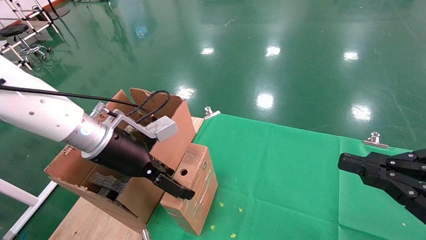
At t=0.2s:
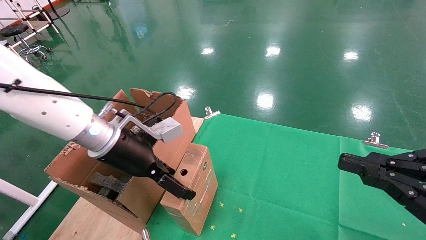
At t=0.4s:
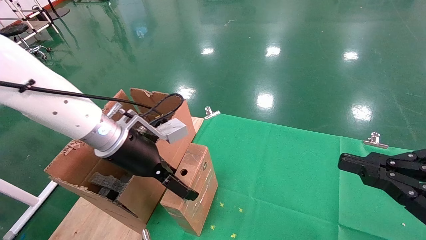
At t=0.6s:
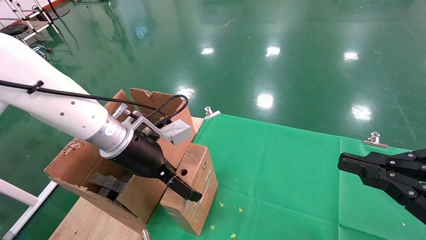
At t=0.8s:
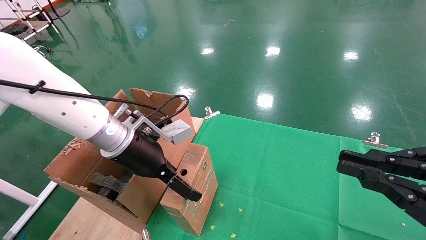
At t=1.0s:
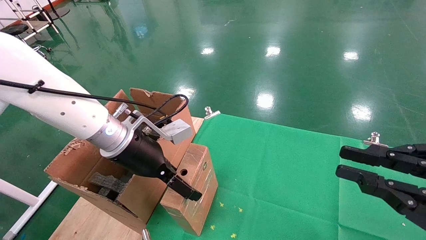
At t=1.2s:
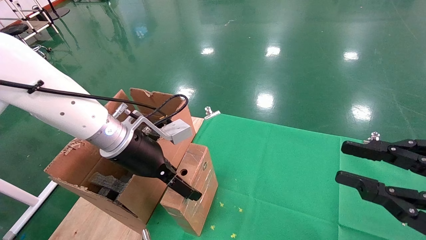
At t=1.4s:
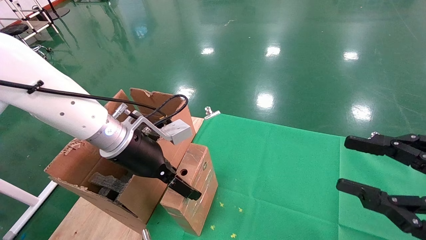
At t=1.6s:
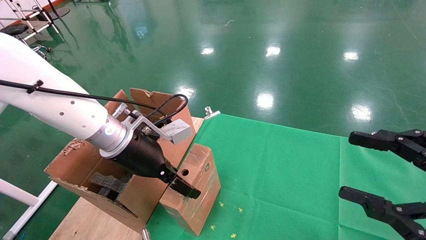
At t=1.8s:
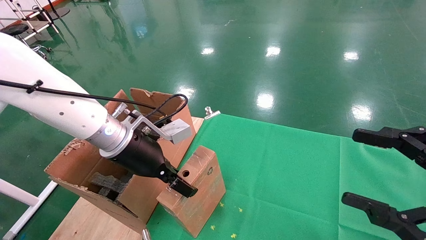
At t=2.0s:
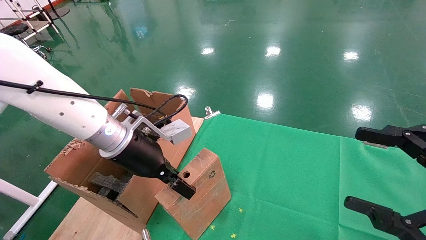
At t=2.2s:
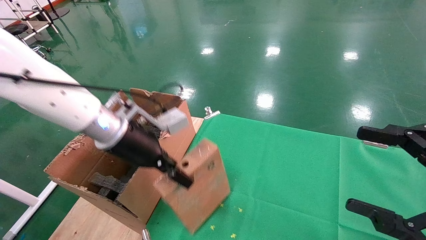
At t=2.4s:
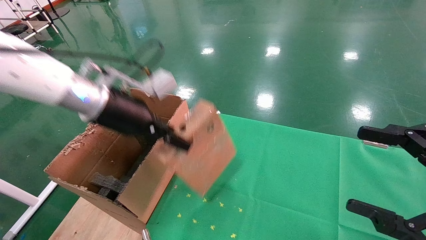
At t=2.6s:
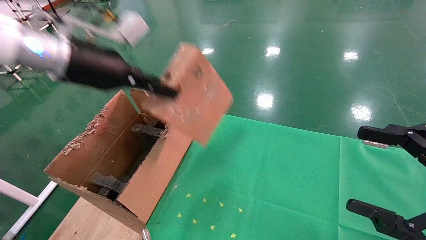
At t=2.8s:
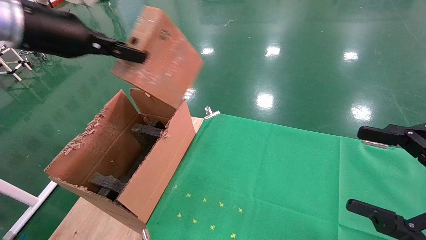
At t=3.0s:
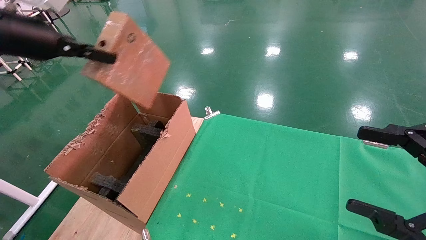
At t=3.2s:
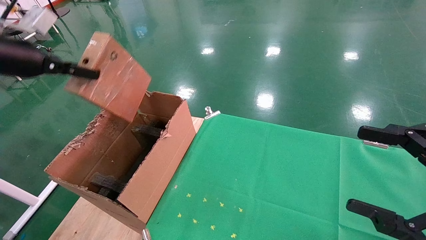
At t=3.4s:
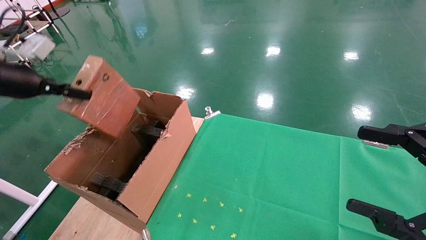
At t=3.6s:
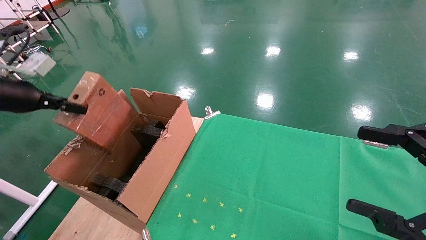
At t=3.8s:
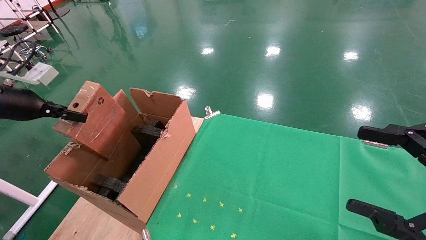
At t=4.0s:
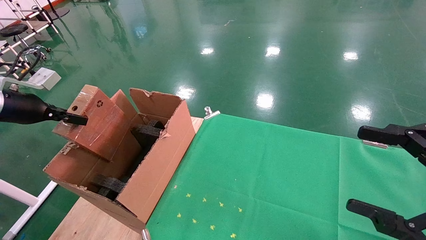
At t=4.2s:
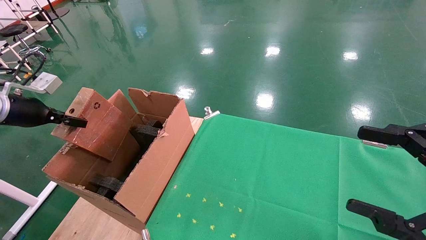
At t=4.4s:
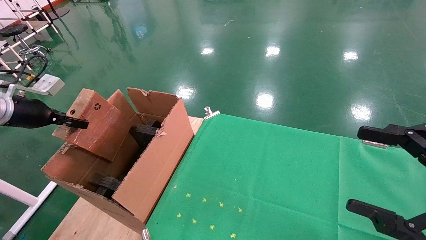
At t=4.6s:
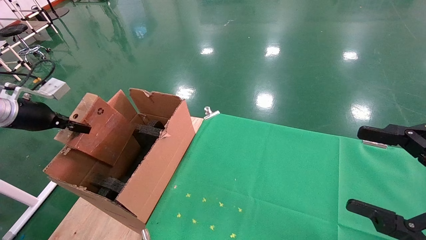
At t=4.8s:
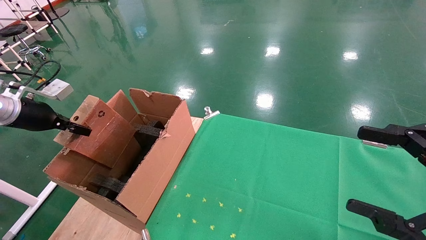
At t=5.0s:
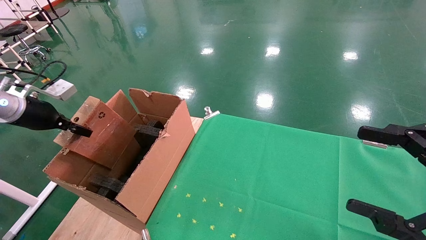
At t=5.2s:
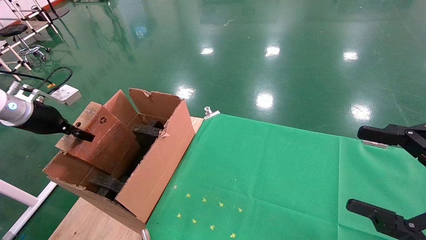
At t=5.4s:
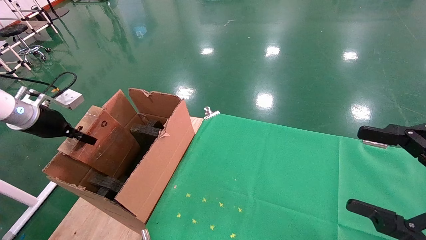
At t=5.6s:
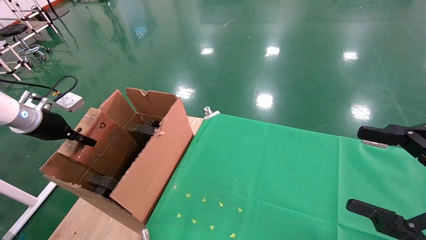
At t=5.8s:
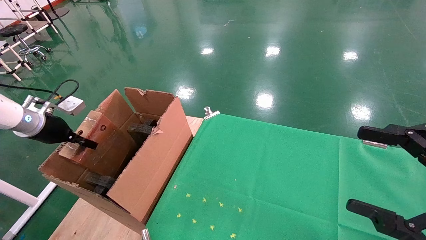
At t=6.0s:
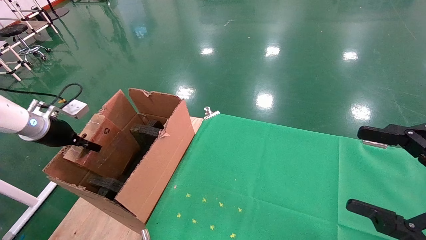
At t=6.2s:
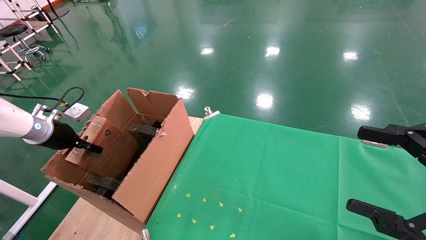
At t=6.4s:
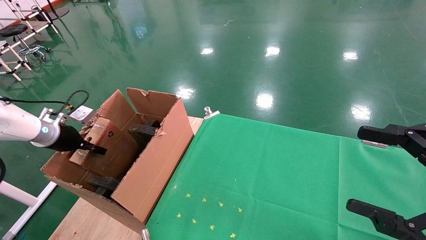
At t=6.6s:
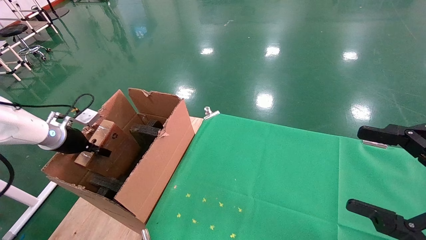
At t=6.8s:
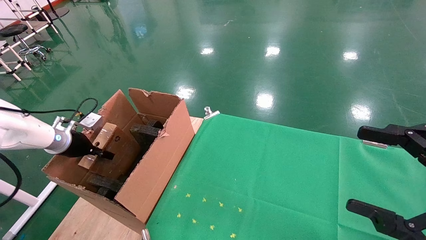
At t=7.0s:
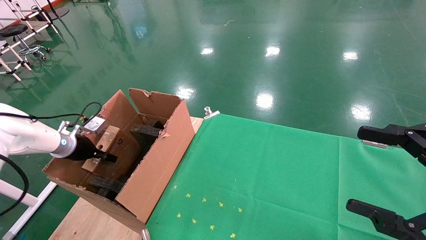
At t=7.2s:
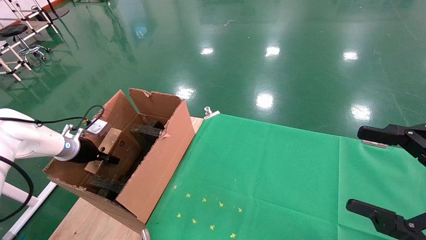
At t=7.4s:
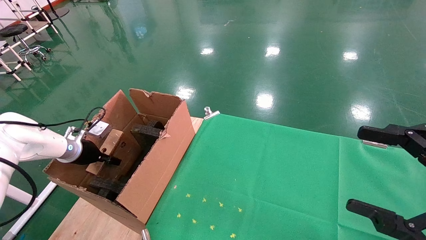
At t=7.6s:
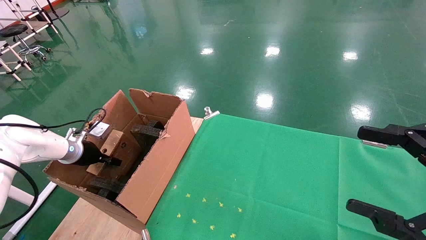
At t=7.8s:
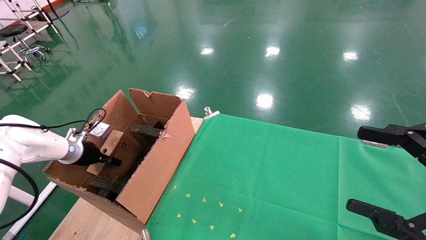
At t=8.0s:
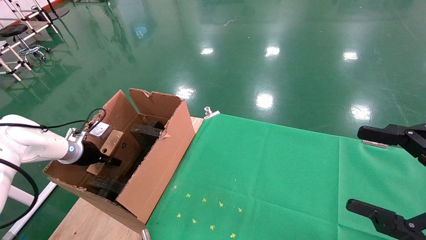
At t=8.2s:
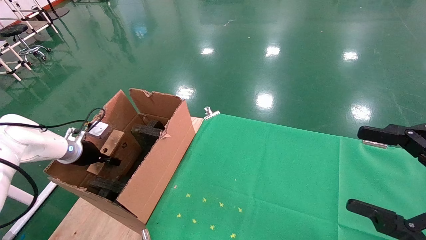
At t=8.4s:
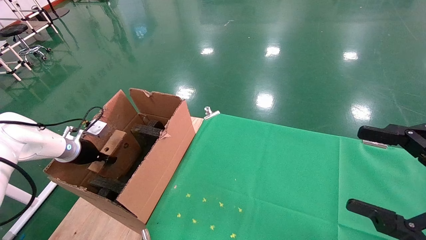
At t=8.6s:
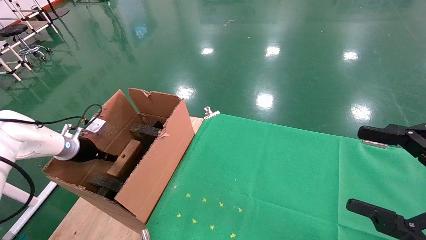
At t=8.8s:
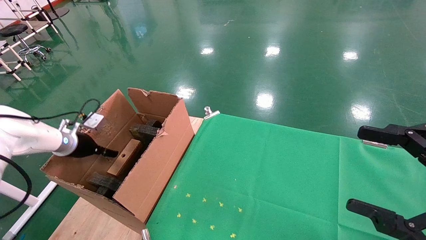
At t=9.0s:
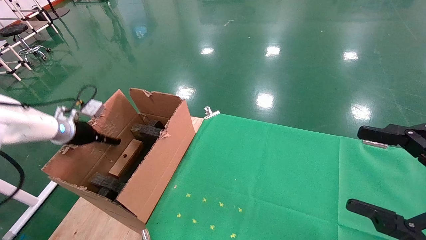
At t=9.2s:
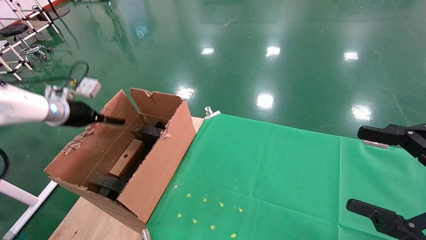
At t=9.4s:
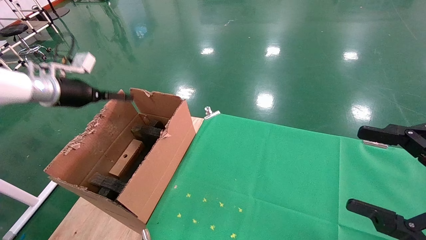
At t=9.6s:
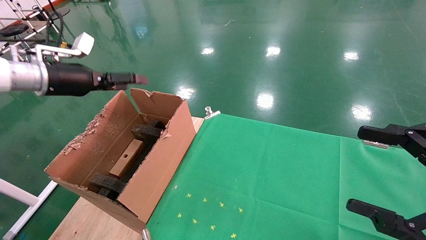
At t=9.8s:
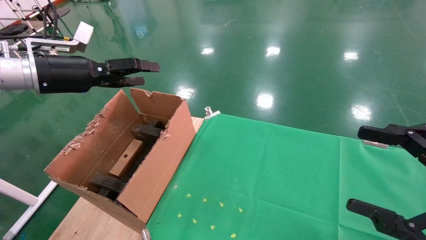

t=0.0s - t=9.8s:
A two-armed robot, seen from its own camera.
Task of the whole recording: using a robotic arm to pick up a cardboard box and palace it the carton.
Step, t=0.0s - t=1.8s: Pick up the mouse and the power cord paper box.
Step, t=2.0s - t=9.4s: Place the mouse and the power cord paper box into the container.
t=0.0s - t=1.4s: The right gripper opens up.
t=1.4s - t=2.8s: The right gripper opens up; the left gripper goes roughly 20 cm upward and to the left, and closes up.
t=2.8s - t=4.2s: The left gripper heads to the left and downward, covering roughly 25 cm.
t=4.2s - t=5.6s: The left gripper shifts by about 5 cm.
t=5.6s - t=7.0s: The left gripper is displaced downward by roughly 10 cm.
t=7.0s - t=8.4s: The grippers move only a little.
t=8.4s - t=9.8s: The left gripper goes approximately 20 cm upward, and opens.

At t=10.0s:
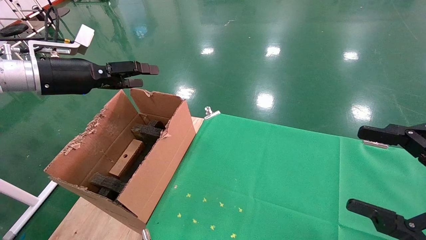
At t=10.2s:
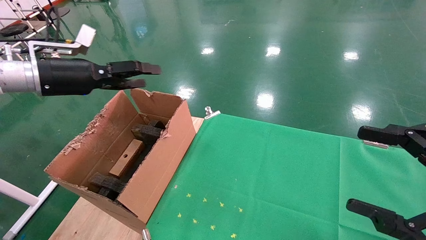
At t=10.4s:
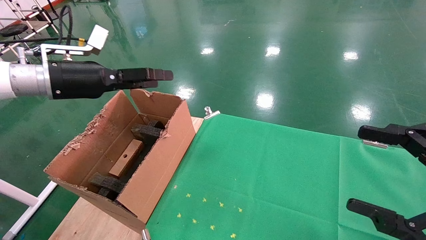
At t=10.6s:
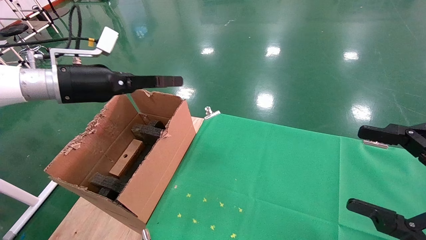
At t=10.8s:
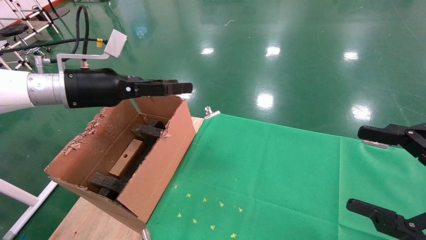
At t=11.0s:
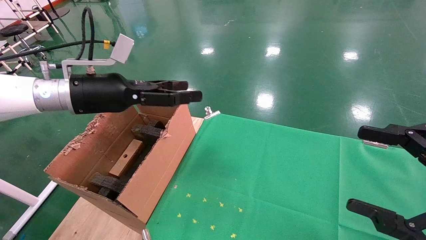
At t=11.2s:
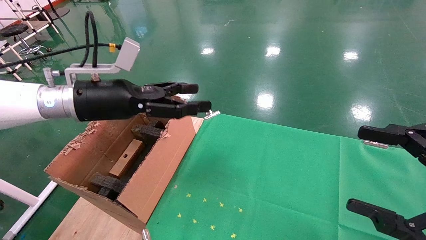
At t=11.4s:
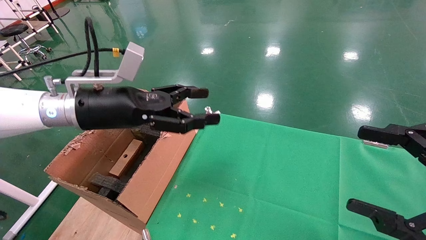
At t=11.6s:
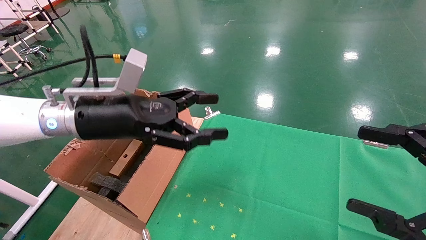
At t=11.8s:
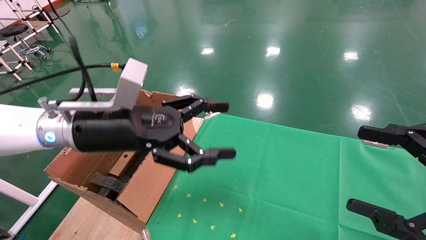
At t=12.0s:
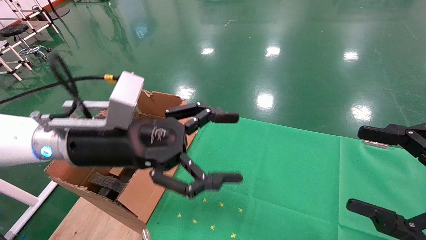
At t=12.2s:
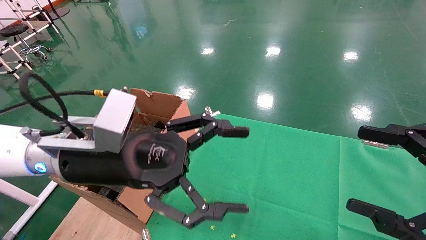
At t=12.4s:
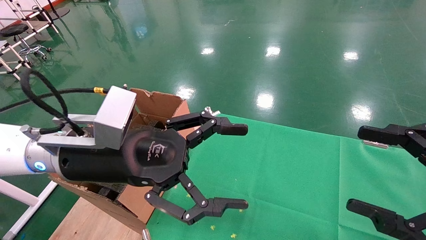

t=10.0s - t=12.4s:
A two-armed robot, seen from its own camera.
Task of the whole recording: using a robotic arm to pick up a cardboard box and palace it the carton.
t=10.0s - t=11.2s: The left gripper heads to the right, covering about 10 cm.
t=11.2s - t=12.4s: The left gripper shifts roughly 10 cm backward and to the right.
